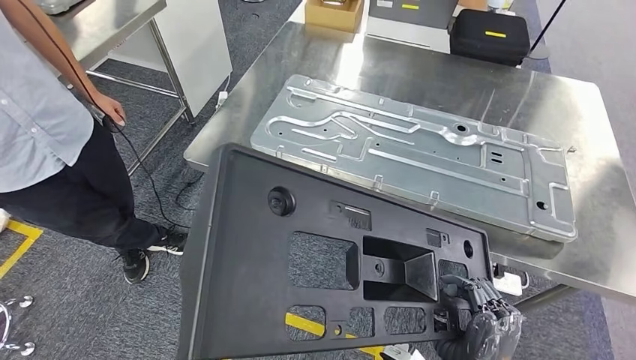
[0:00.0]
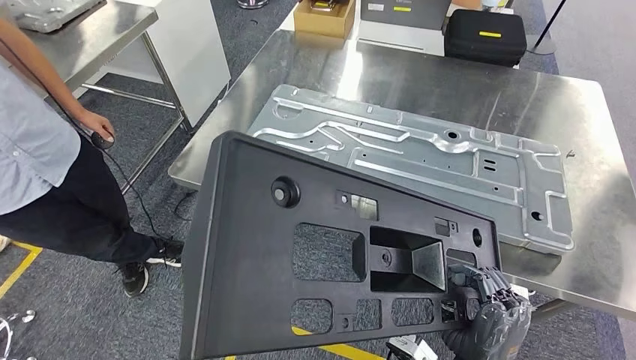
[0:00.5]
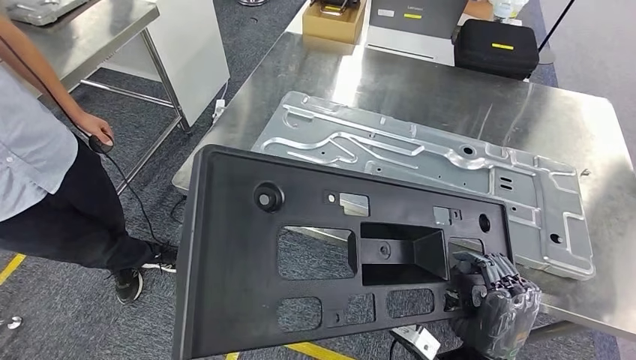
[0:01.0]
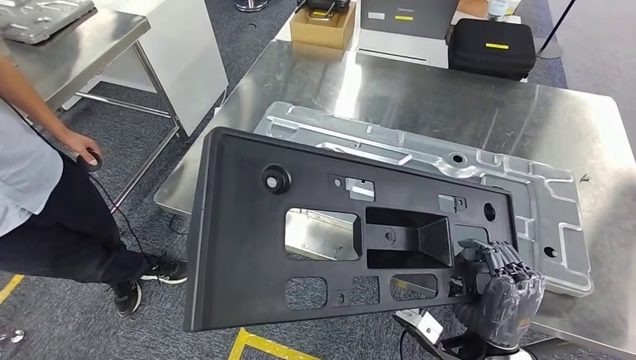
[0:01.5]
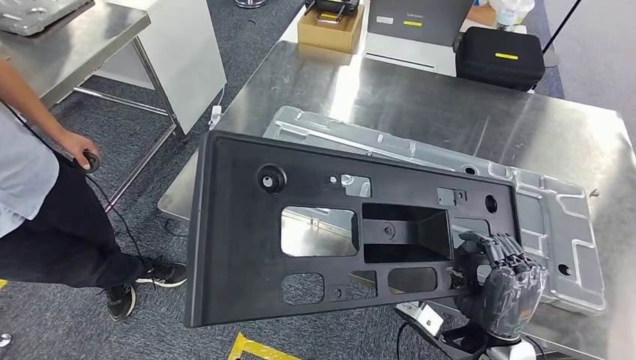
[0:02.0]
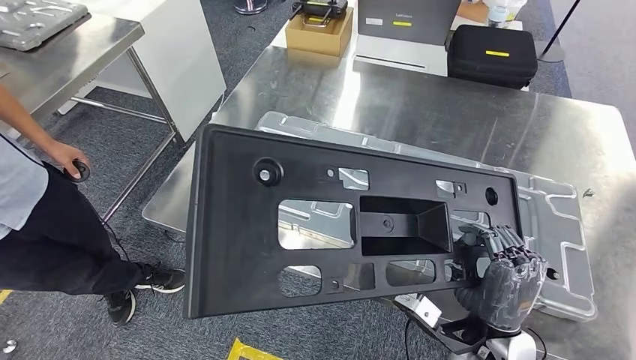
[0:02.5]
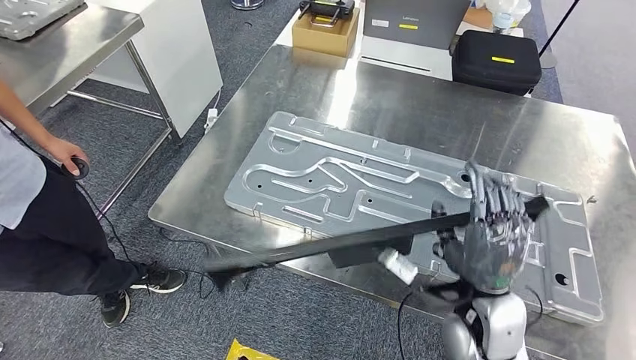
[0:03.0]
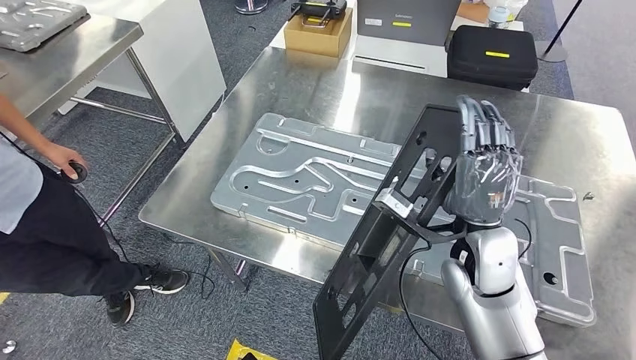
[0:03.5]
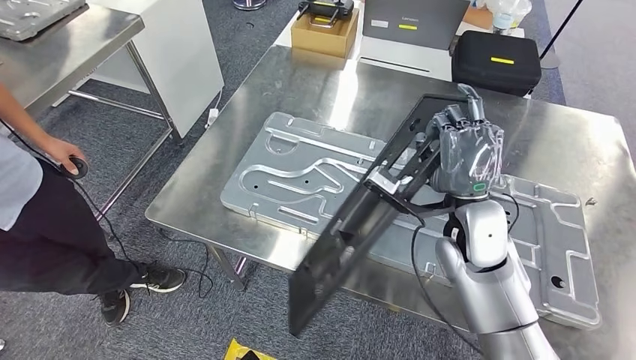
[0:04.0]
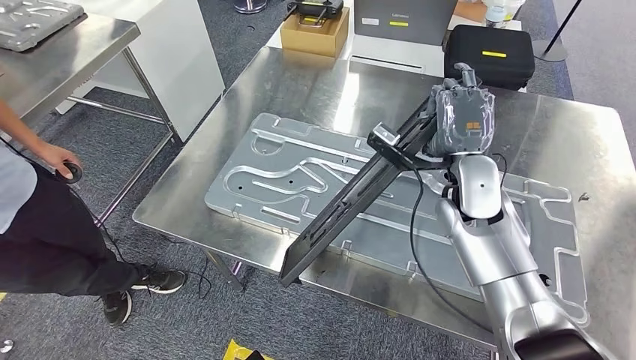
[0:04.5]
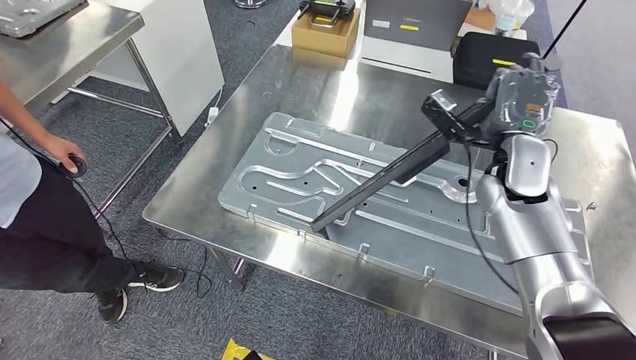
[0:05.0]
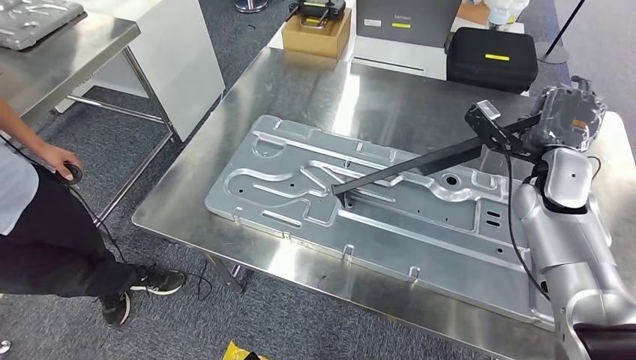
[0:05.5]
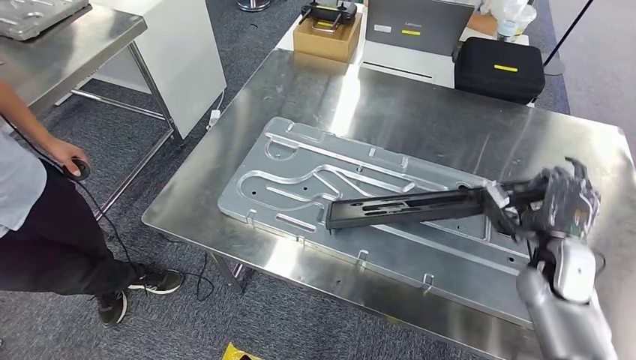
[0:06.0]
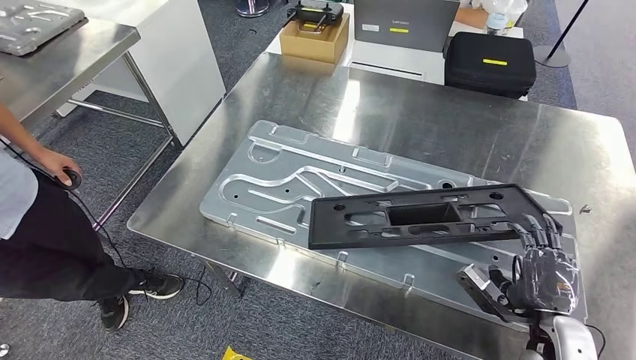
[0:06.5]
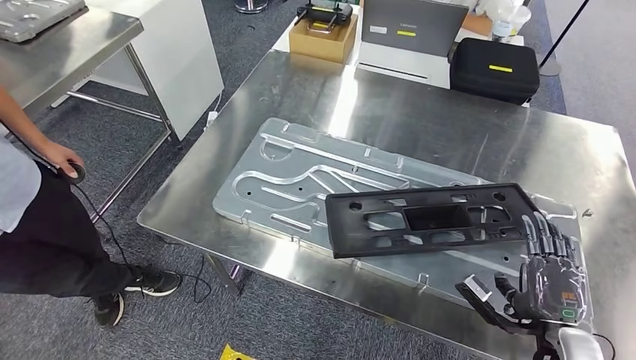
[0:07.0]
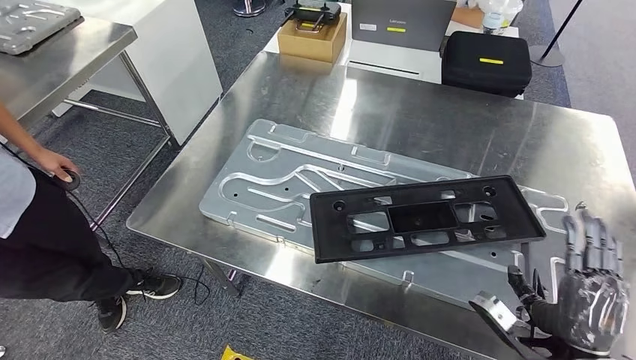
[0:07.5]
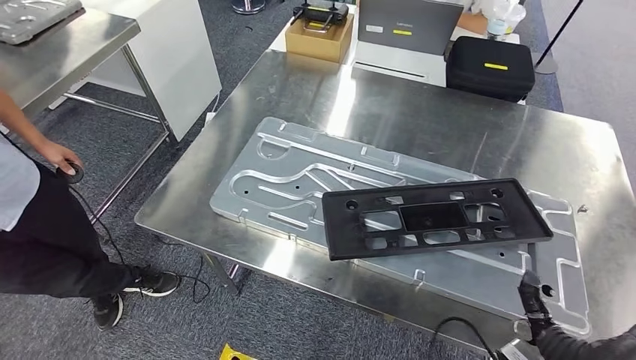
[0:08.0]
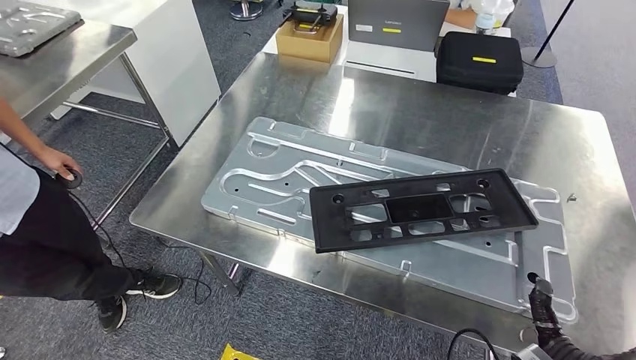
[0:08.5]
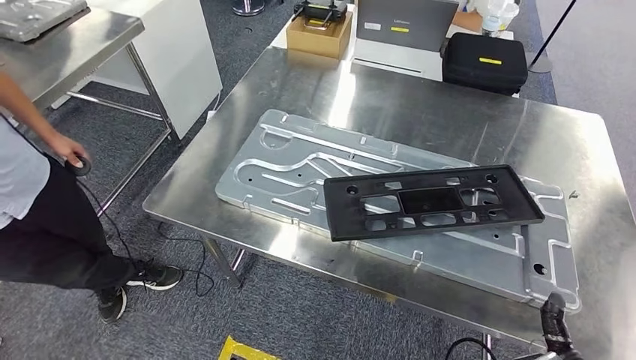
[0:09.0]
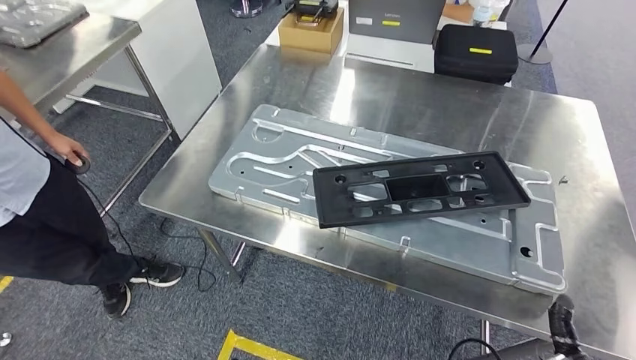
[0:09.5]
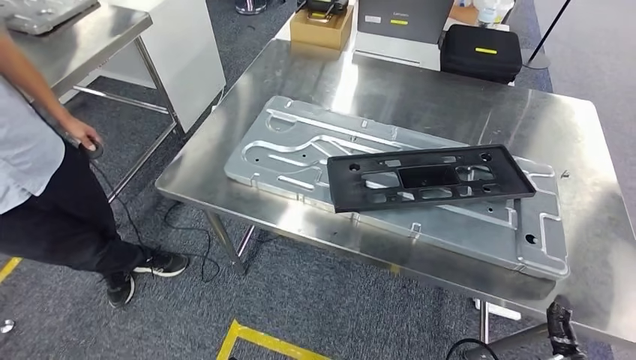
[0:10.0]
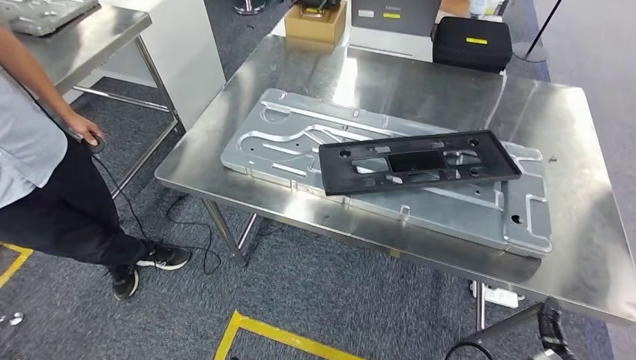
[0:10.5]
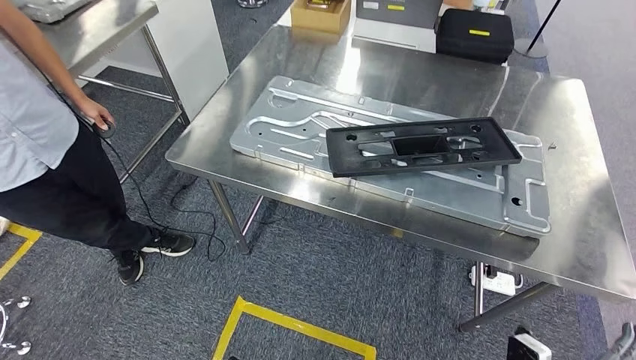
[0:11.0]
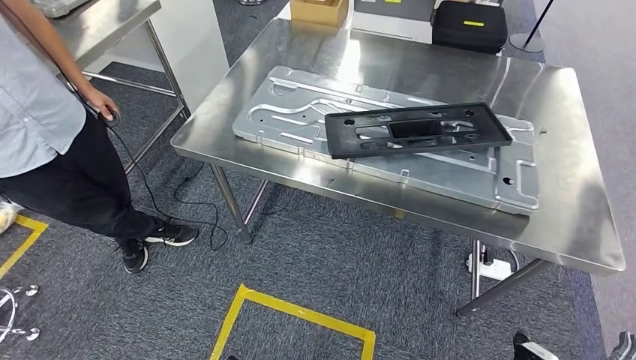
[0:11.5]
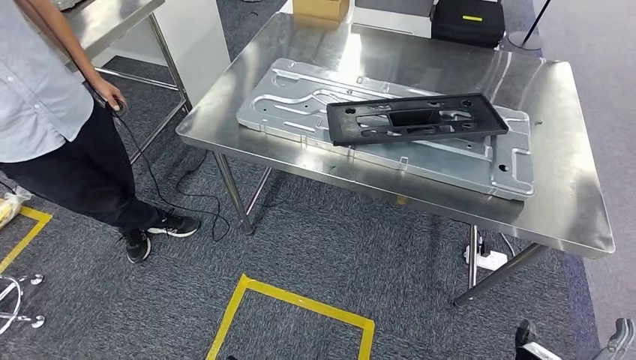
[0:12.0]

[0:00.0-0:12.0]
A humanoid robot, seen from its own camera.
Step, 0:01.0 to 0:08.0: Insert the large material into the corresponding slot on the workbench.

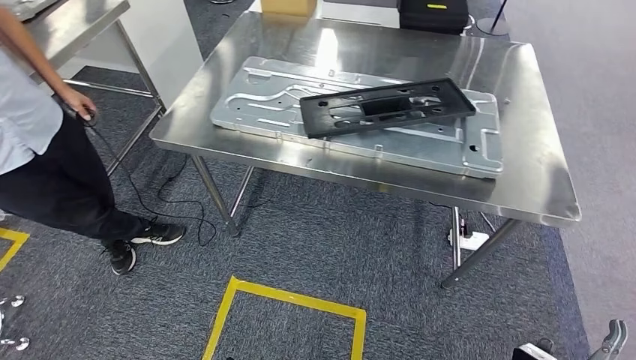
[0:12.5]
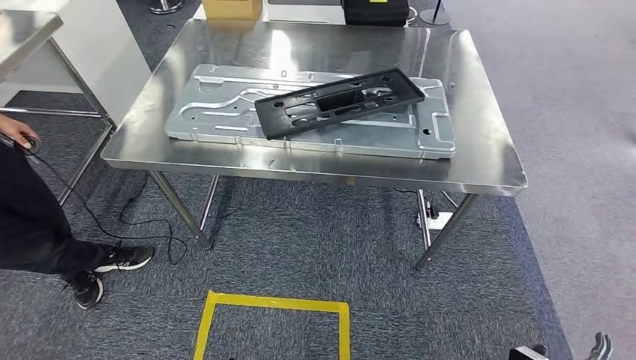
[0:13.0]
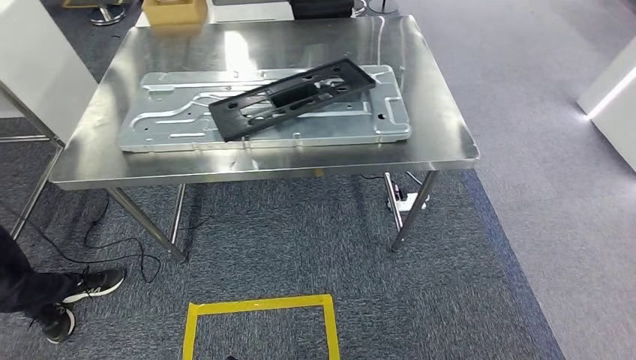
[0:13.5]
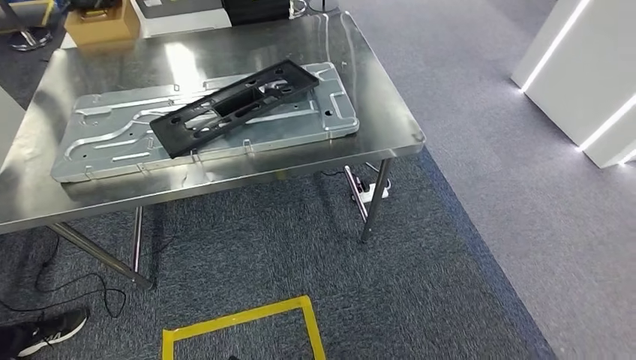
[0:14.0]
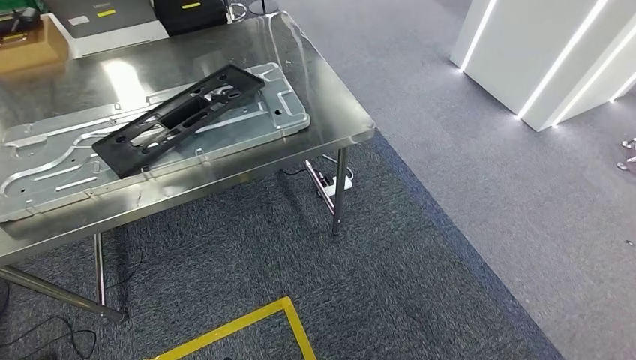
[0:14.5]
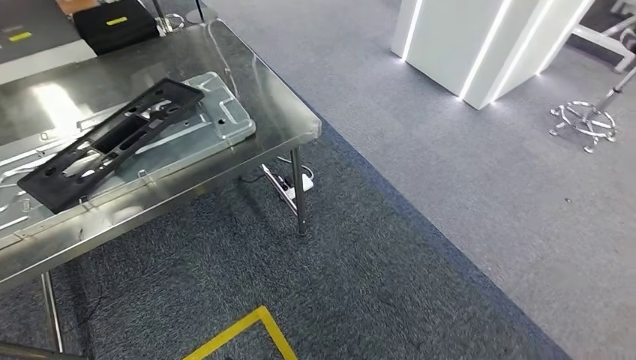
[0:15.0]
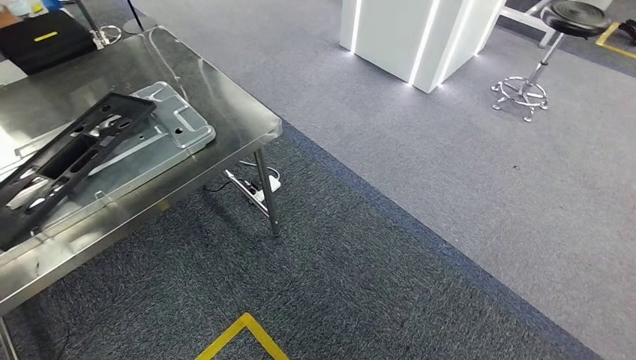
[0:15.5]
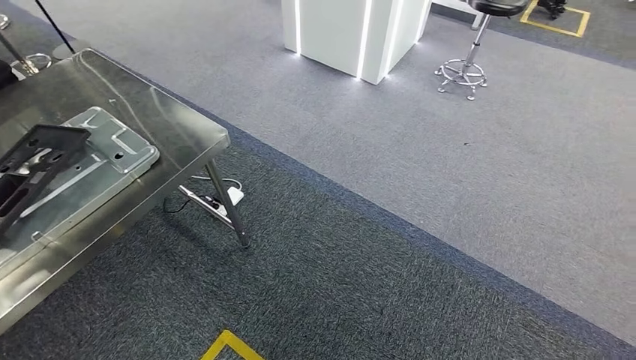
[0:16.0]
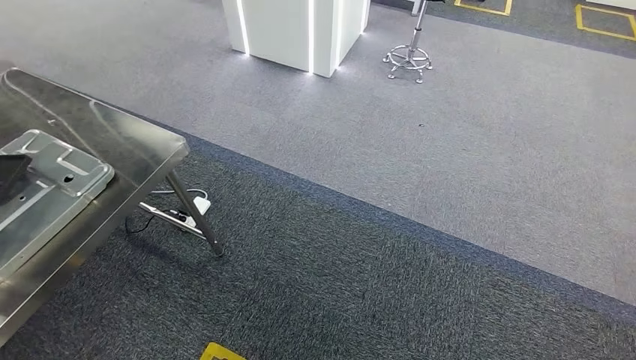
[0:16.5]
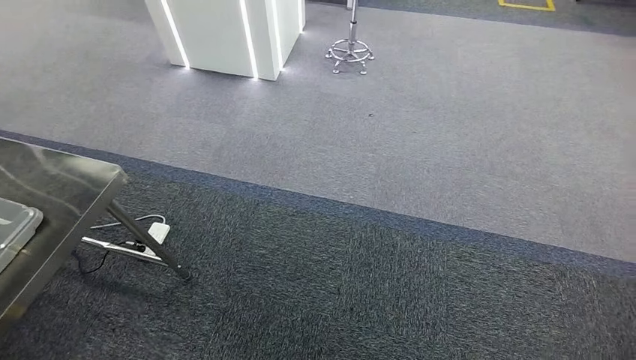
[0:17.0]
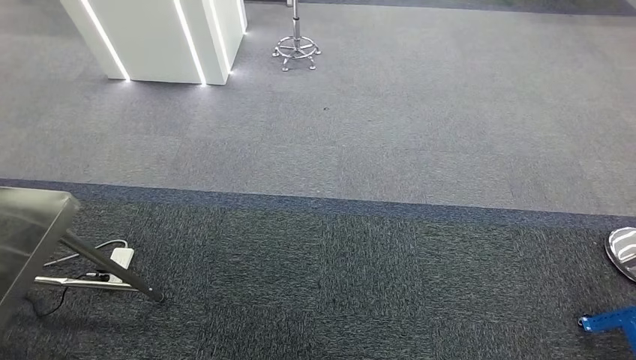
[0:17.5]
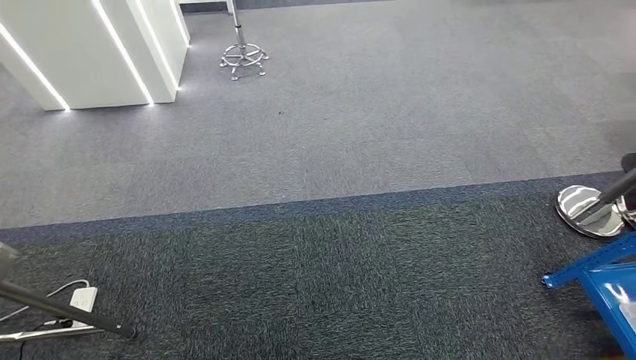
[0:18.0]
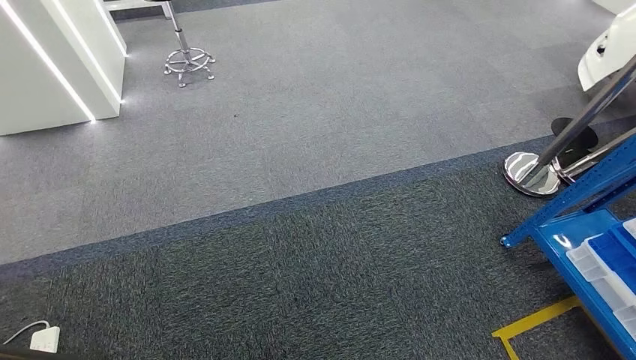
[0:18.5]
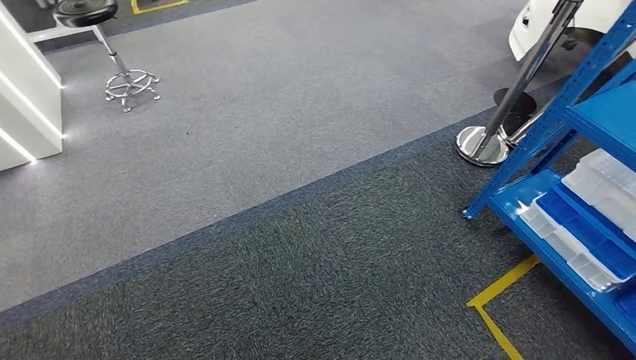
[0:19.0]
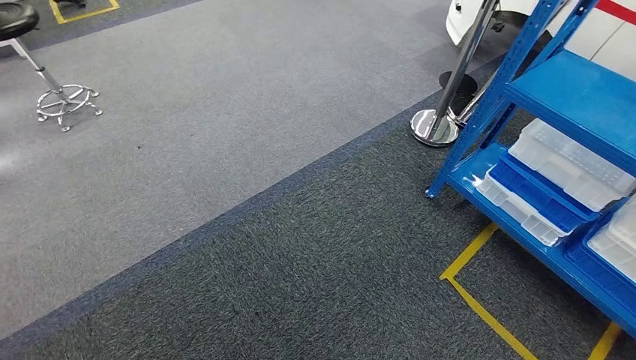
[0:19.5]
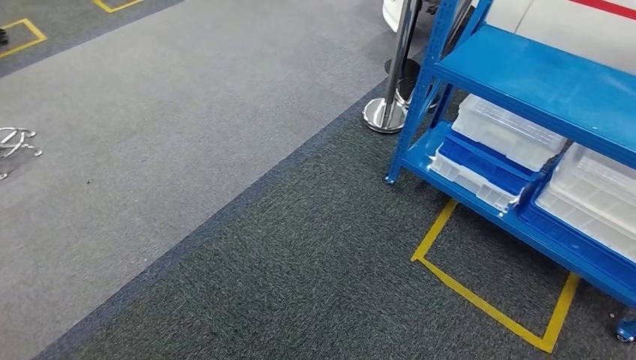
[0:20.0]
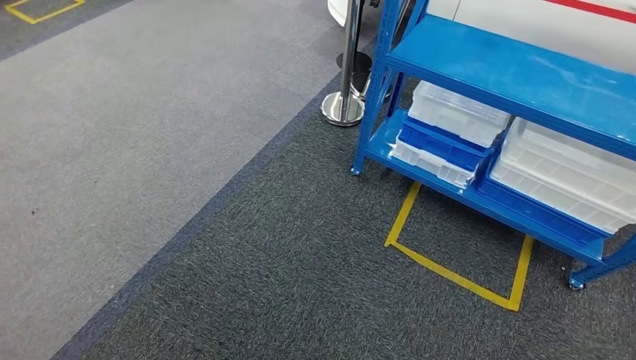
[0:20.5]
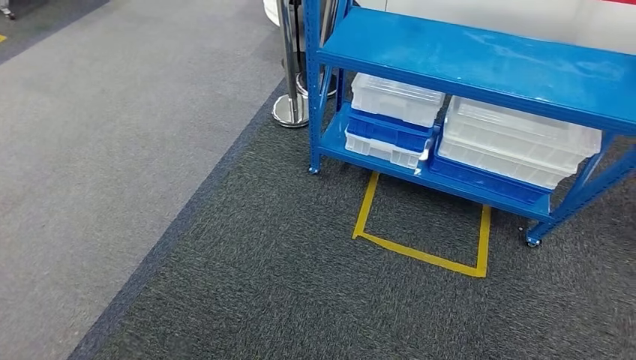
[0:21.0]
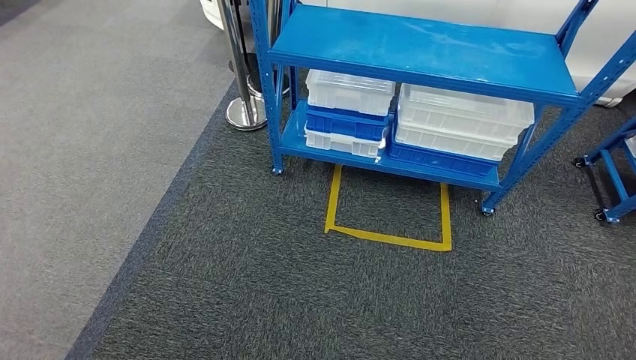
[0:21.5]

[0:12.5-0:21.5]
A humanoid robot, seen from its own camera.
Step, 0:12.5 to 0:21.5: Move to the initial position of the shelf.
